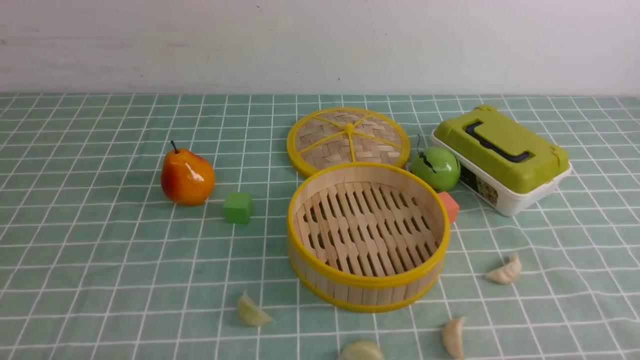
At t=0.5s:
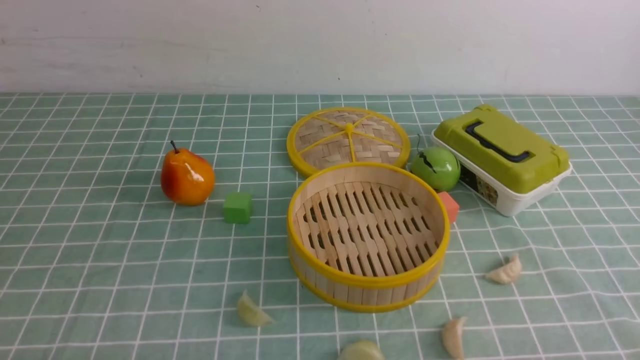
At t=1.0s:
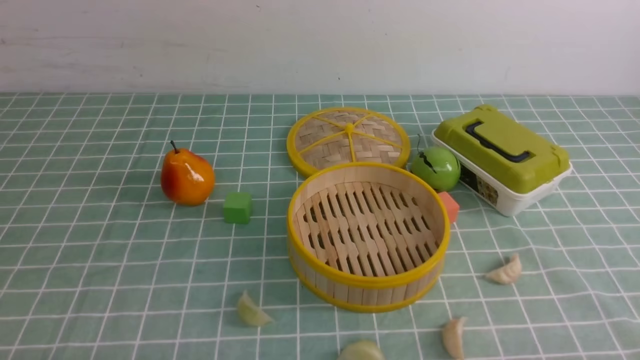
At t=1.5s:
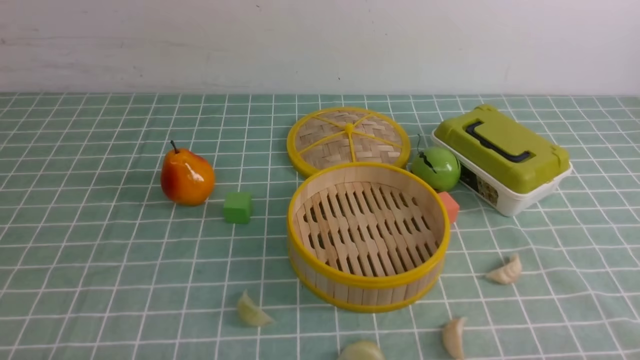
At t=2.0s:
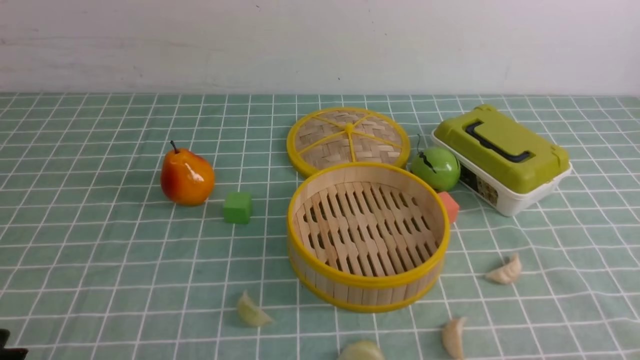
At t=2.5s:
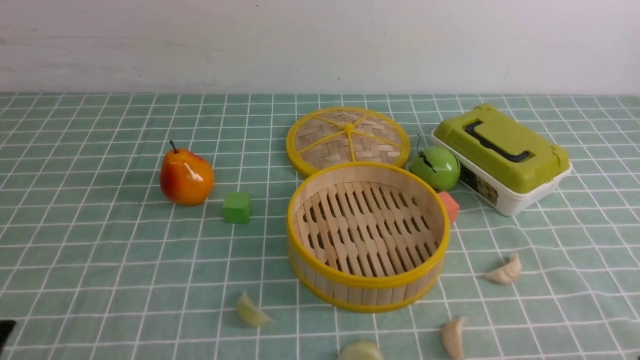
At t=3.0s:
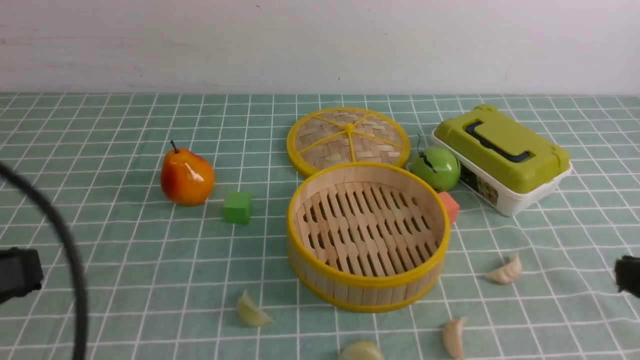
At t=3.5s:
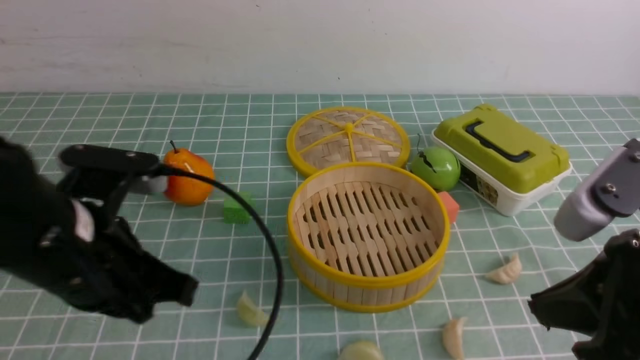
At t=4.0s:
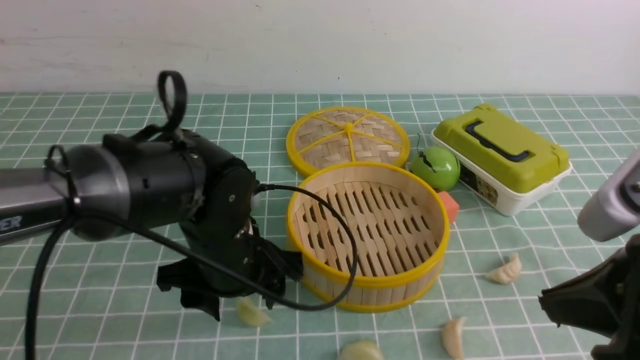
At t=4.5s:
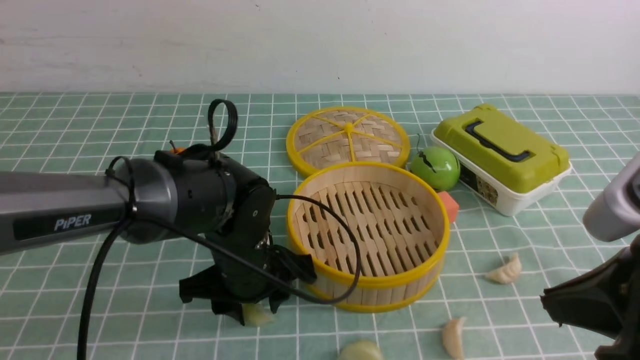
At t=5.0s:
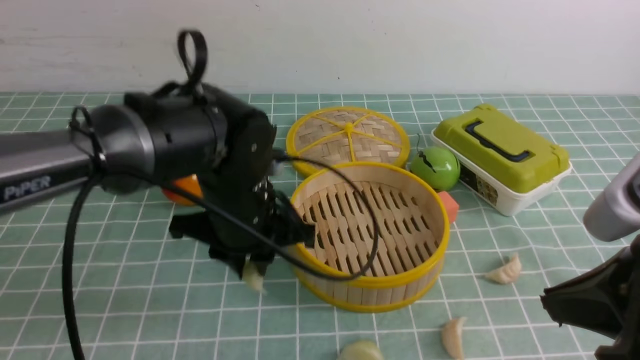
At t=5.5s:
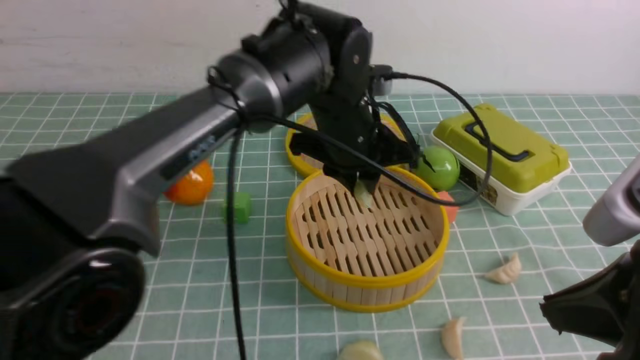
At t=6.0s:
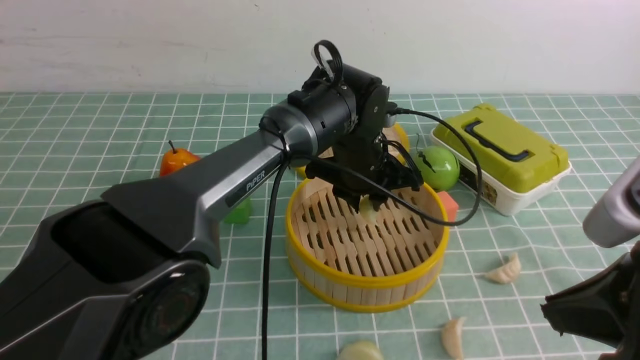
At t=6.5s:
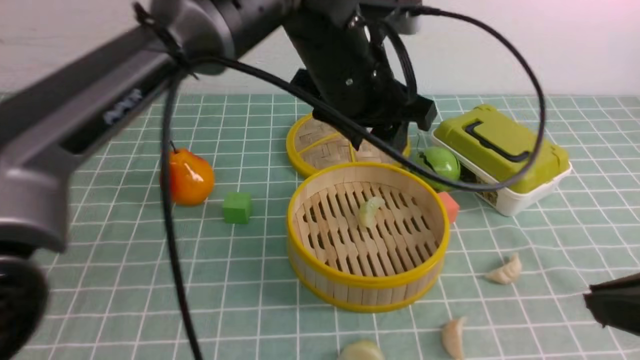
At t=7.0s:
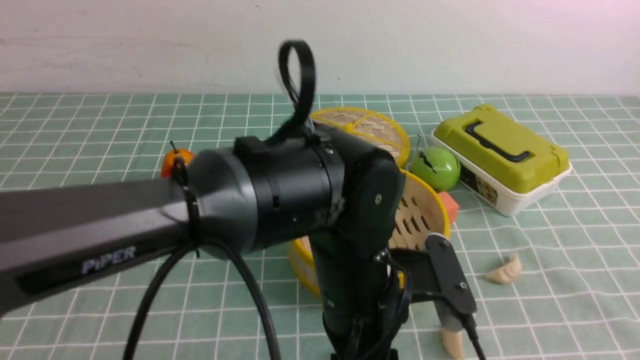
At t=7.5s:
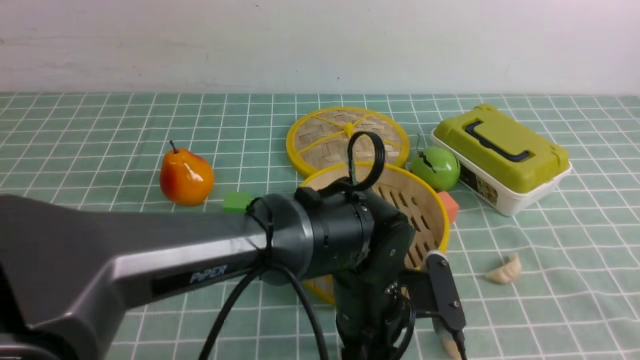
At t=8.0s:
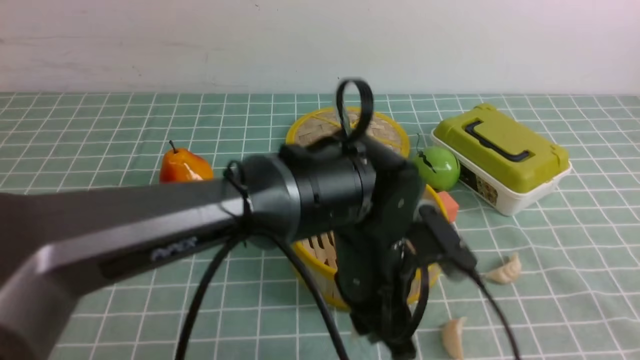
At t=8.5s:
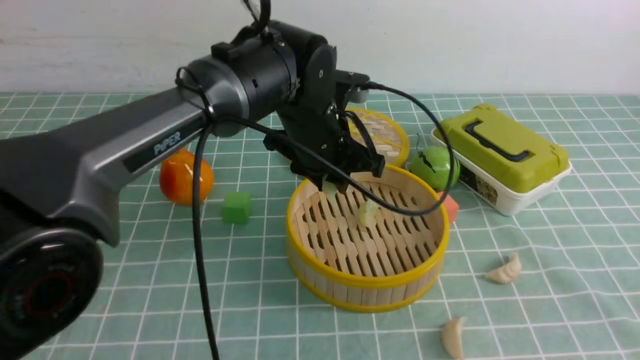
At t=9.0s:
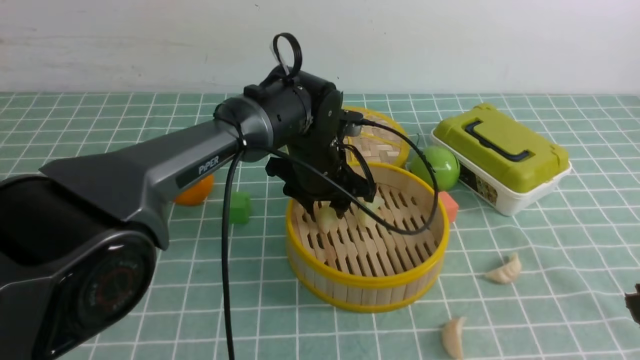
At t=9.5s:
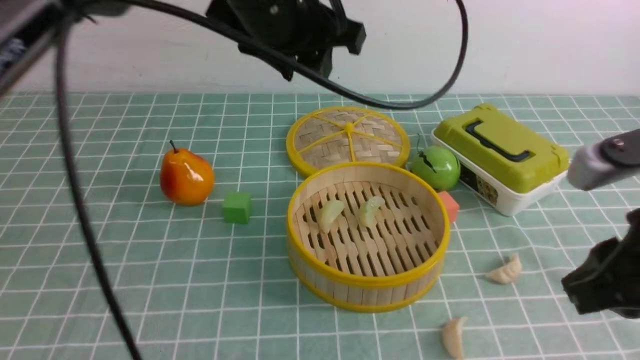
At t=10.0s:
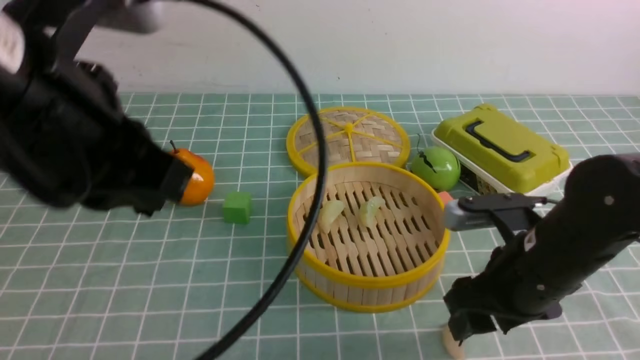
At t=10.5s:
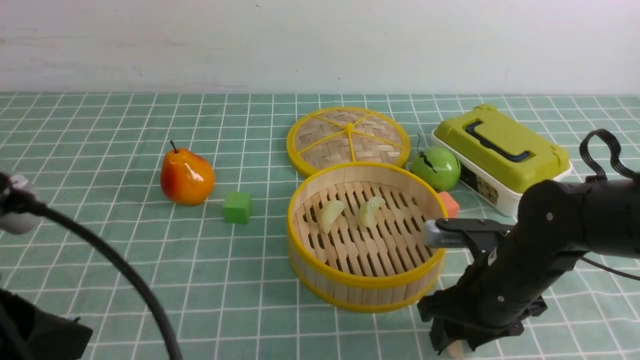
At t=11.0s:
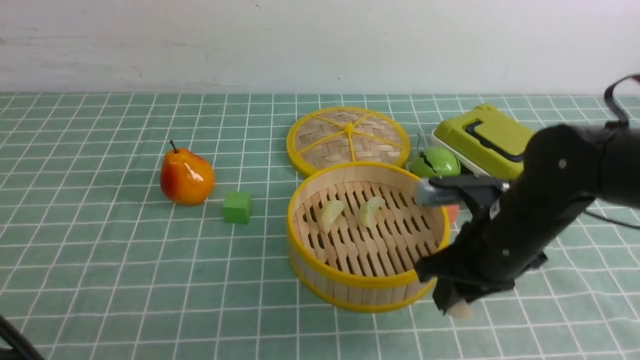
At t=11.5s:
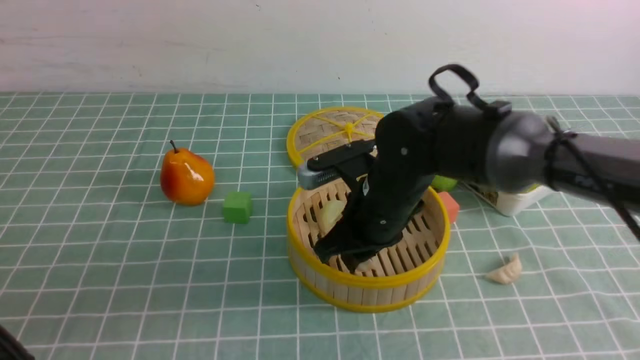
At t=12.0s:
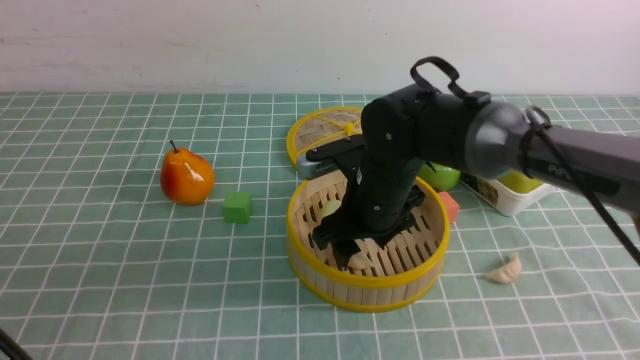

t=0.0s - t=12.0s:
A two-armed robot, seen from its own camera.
Task of the whole recording: put the dumplings into the steamer on the table with the blue tablecloth.
Step, t=0.0s - t=5.0s: use the left arm to grab a dumpling.
Step, t=5.5s - t=6.0s: use the left arm to put the dumpling into the steamer.
Step, t=7.0s - t=8.0s: use the left arm to grab a dumpling.
Step, t=8.5s - t=9.0s: use the left arm to put the dumpling into the steamer.
Step, t=9.5s - t=11.0s: use the right arm to grab a dumpling.
t=2.0s - t=4.0s: The right gripper is displaced upward, forward and to the left by some 20 cm, and closes. Meanwhile the left gripper is displaced forward and to the right by some 30 cm, and opens its fingers.
t=4.0s - t=6.0s: The left gripper moves forward and to the right, approximately 20 cm, and closes its fingers.
t=6.0s - t=8.0s: The left gripper shifts approximately 15 cm backward, and opens and closes again, while the right gripper heads backward, covering about 5 cm.
t=8.0s - t=10.0s: The right gripper travels forward, downward and to the left by roughly 20 cm, and opens up. The left gripper moves up and down over approximately 20 cm, changing direction 2 times, and closes its fingers.
t=10.0s - t=12.0s: The right gripper goes approximately 15 cm to the left and forward, and closes, then opens again; the left gripper is displaced backward, to the left and downward by approximately 20 cm.

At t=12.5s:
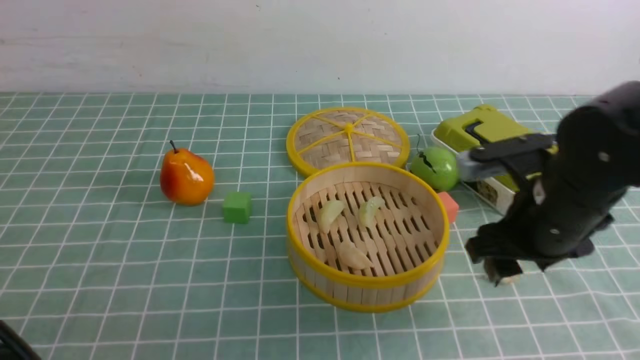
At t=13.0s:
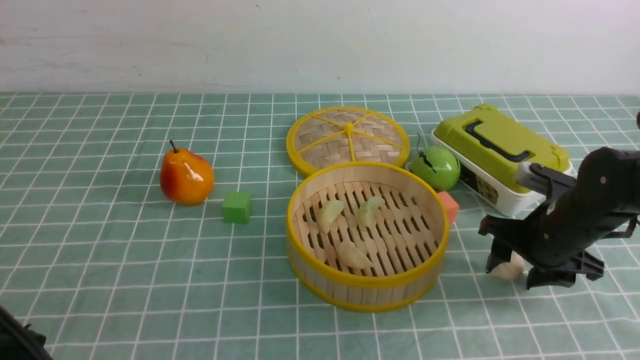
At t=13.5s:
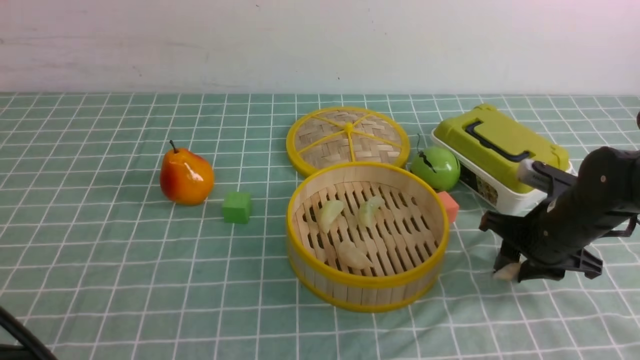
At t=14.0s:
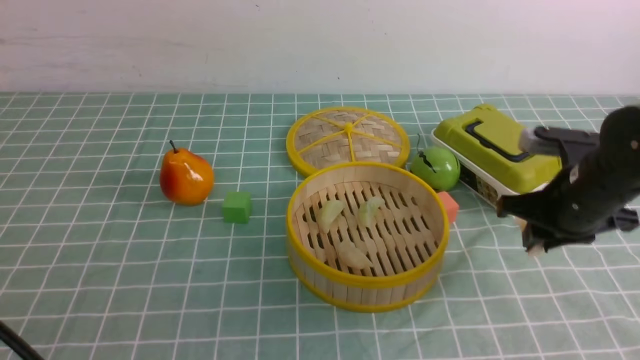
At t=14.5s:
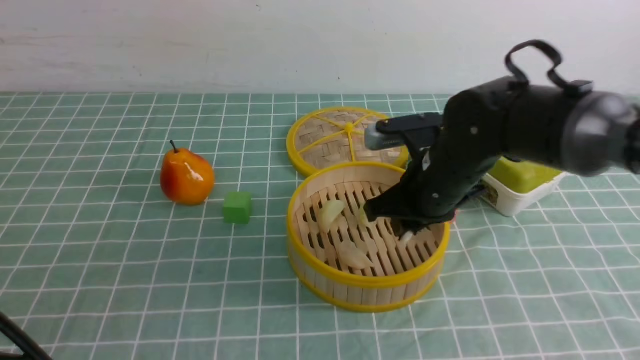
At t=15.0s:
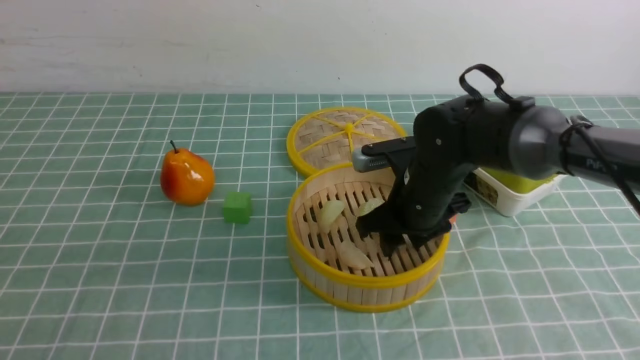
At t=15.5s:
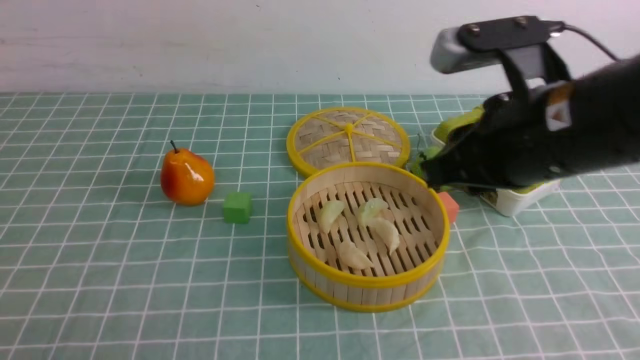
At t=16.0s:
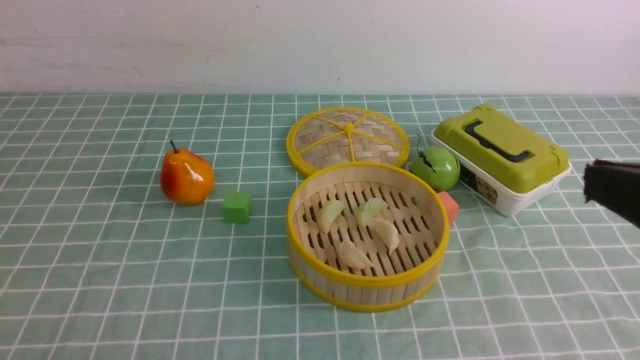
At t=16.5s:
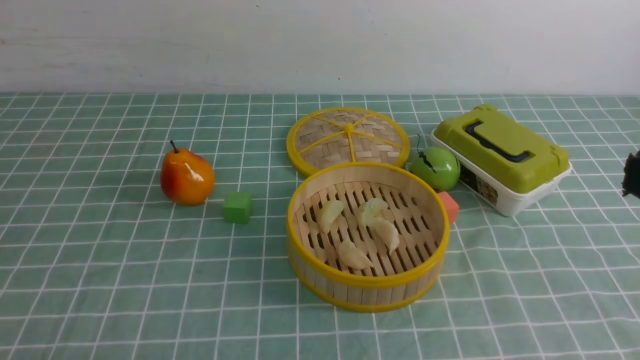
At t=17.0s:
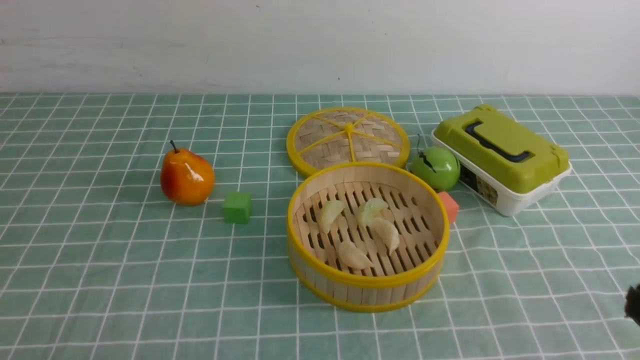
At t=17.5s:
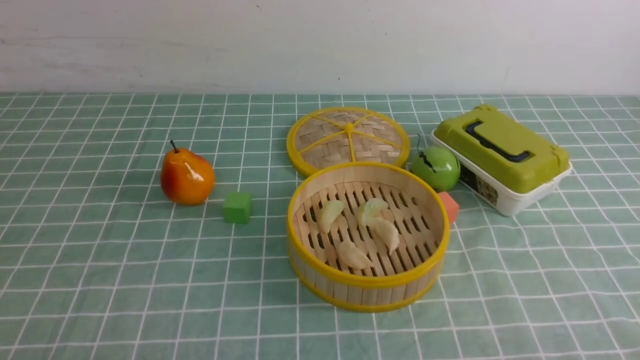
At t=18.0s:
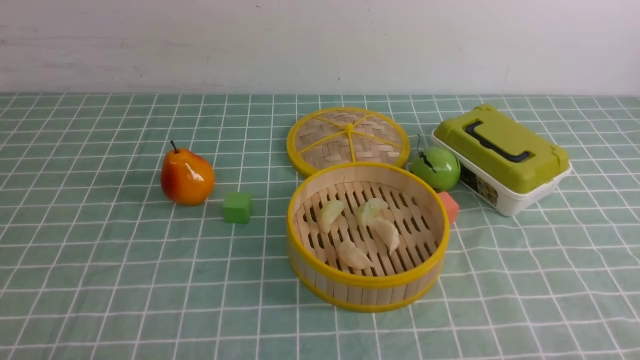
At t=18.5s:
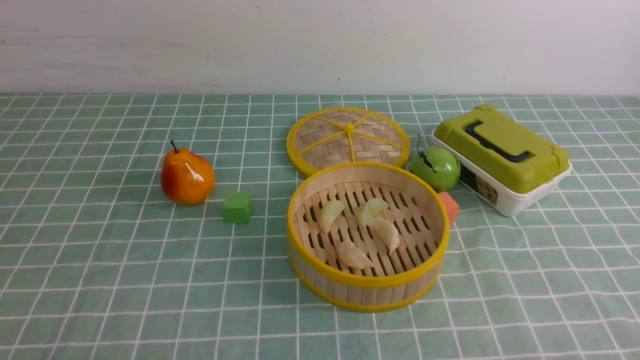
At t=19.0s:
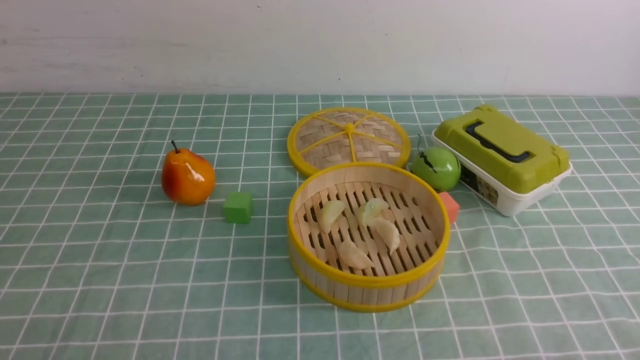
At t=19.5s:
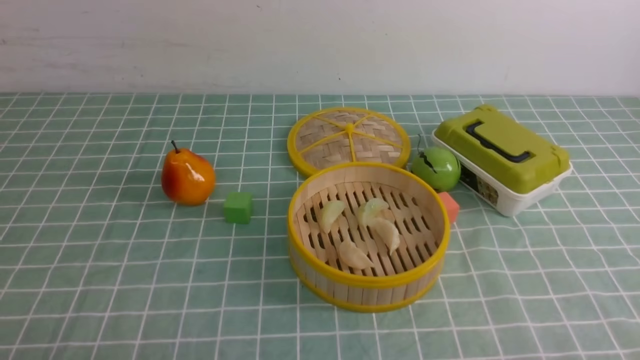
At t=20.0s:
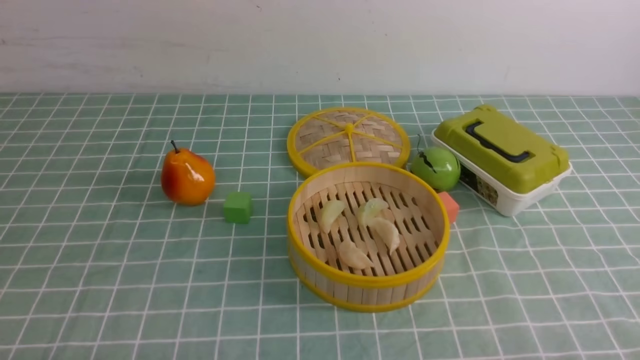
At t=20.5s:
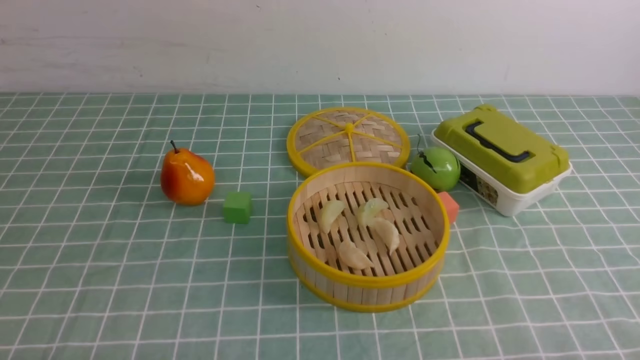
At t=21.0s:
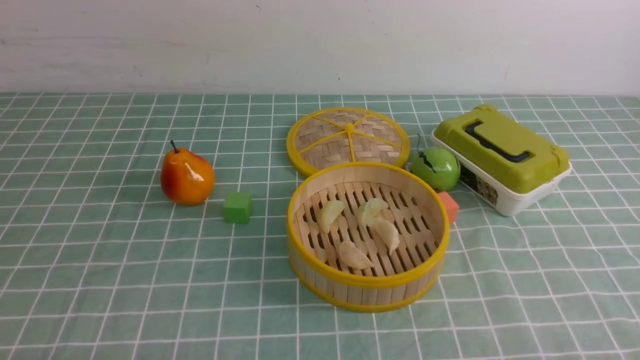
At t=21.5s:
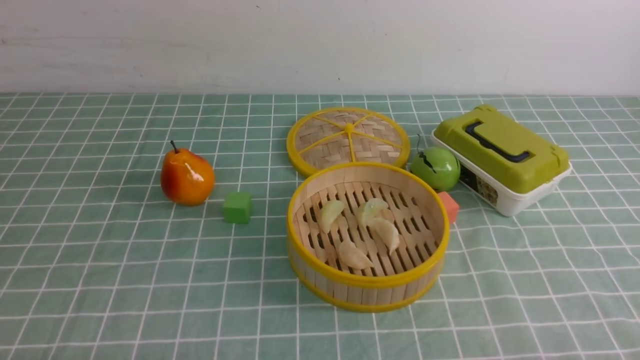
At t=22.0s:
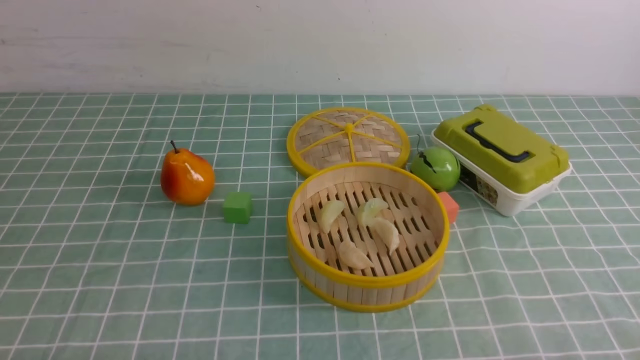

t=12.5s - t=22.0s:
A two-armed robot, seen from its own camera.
Task of the whole recording: put the dumplings into the steamer on the table with the blue tablecloth.
Step, t=12.5s - t=13.5s: use the right arm to grab a dumpling.
Step, t=14.0s - t=15.5s: use the right arm to put the dumpling into the steamer.
t=12.5s - t=14.5s: The right gripper reaches roughly 10 cm to the right, then returns, and closes its fingers.
t=14.5s - t=16.5s: The right gripper heads backward, upward and to the right, covering some 30 cm, and closes its fingers; the left gripper is displaced backward and downward by approximately 10 cm.
t=20.0s - t=22.0s: The two grippers keep their place.
